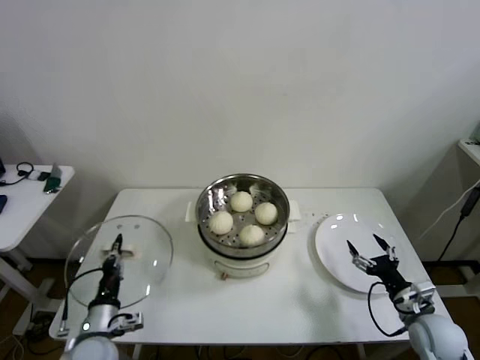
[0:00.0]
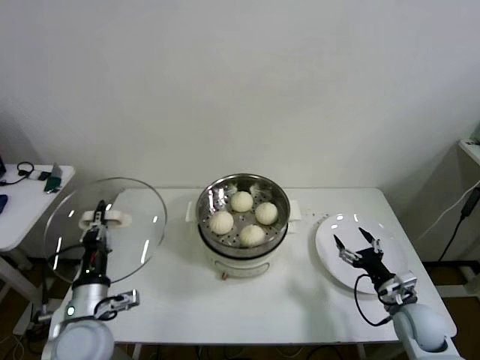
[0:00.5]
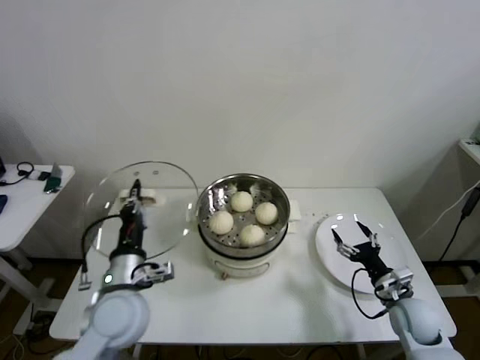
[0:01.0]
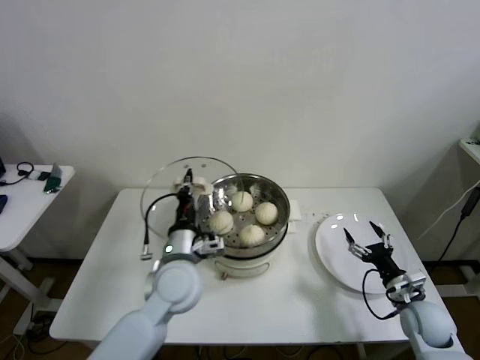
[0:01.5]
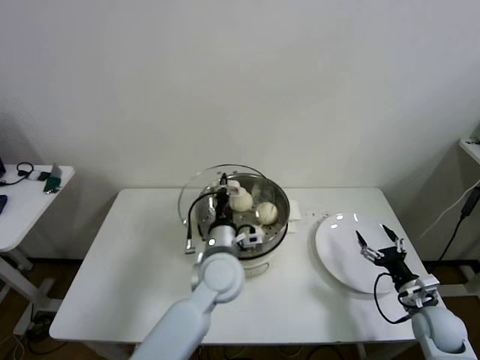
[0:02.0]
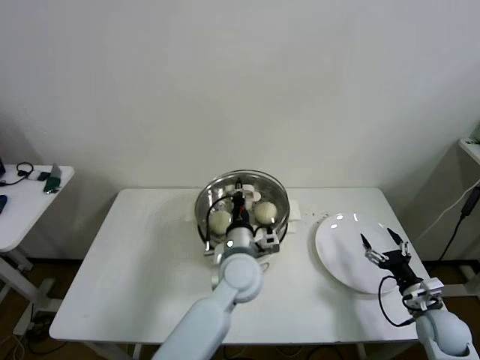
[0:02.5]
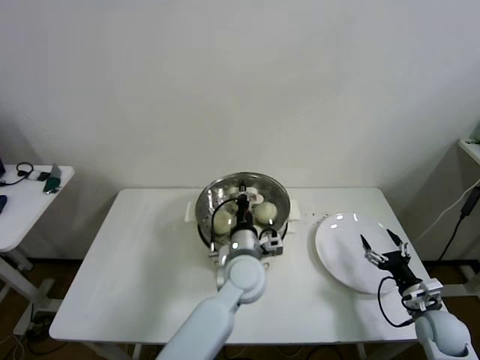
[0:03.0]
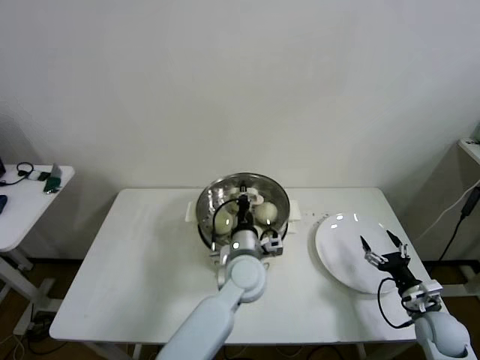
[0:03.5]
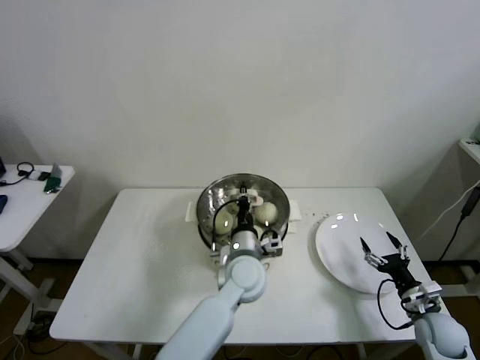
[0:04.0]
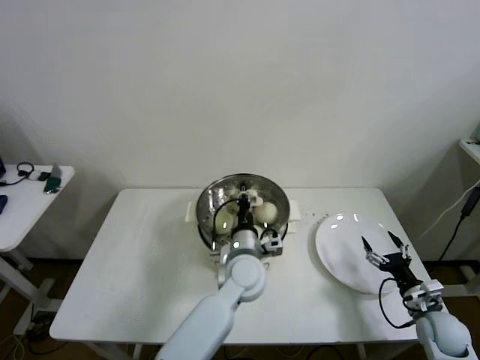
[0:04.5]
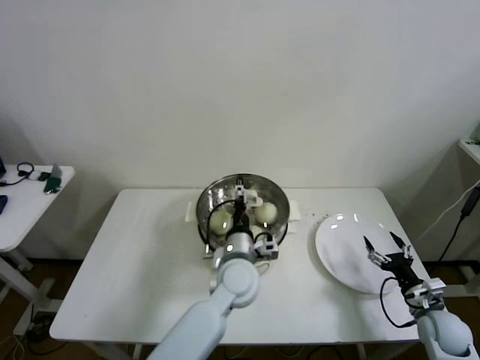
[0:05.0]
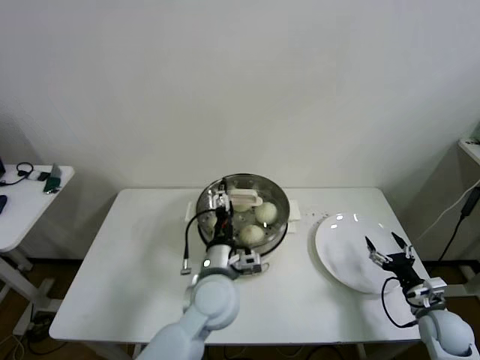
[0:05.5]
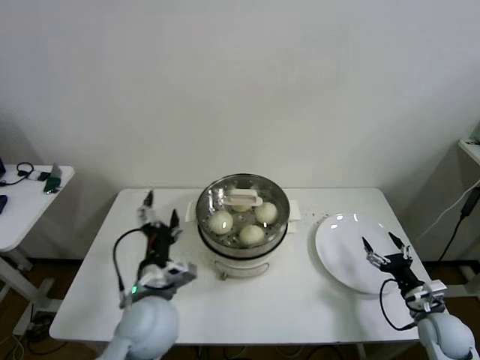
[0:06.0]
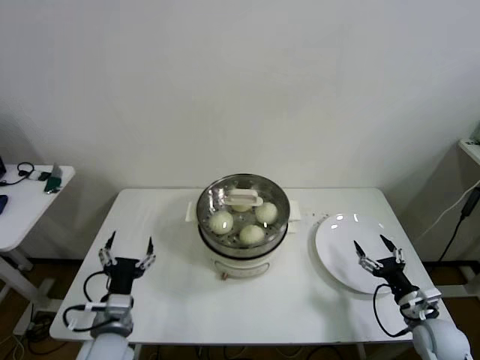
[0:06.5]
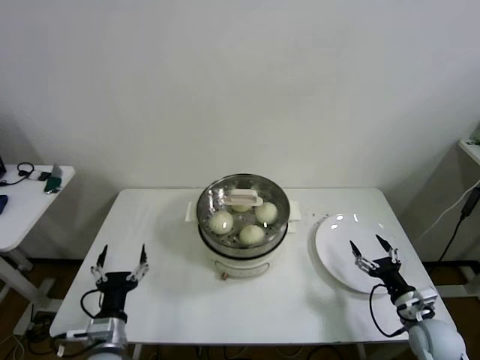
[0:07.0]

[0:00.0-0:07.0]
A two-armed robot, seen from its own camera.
Step, 0:00.0 to 0:04.5: Place the pot lid on the steamer with left gripper.
0:00.0 to 0:02.0: The left gripper is displaced to the right, upward and forward by approximately 30 cm.
0:02.0 to 0:03.5: The left gripper moves to the right, roughly 5 cm.
0:03.5 to 0:05.0: The left gripper opens.
0:05.0 to 0:07.0: The left gripper heads to the left and backward, covering roughly 30 cm.

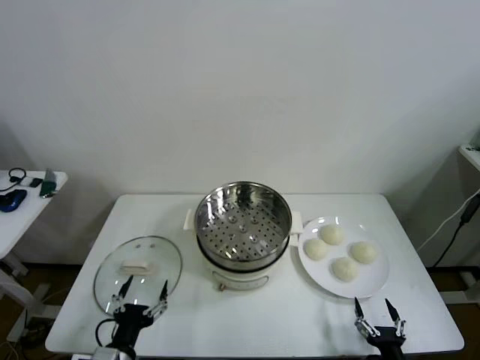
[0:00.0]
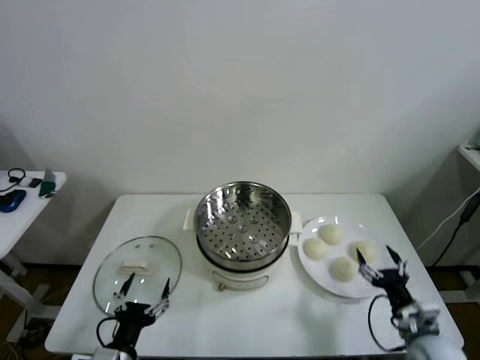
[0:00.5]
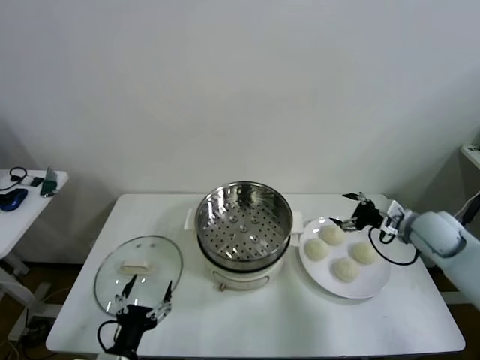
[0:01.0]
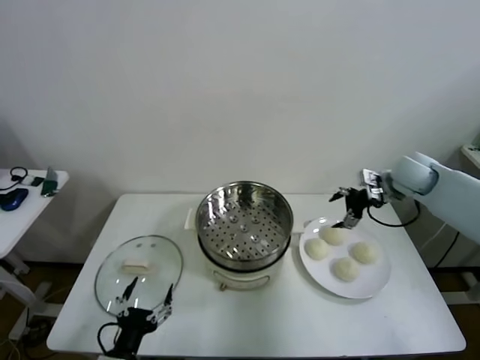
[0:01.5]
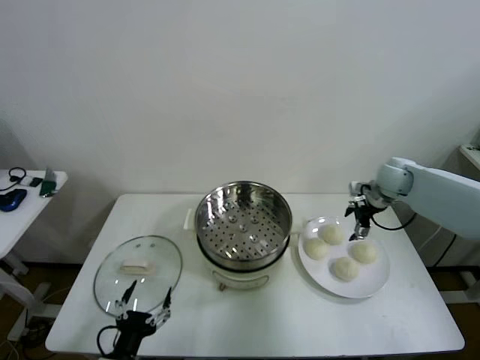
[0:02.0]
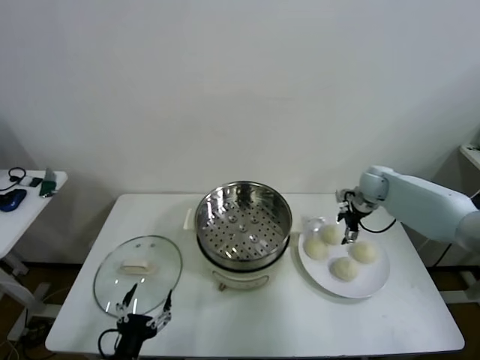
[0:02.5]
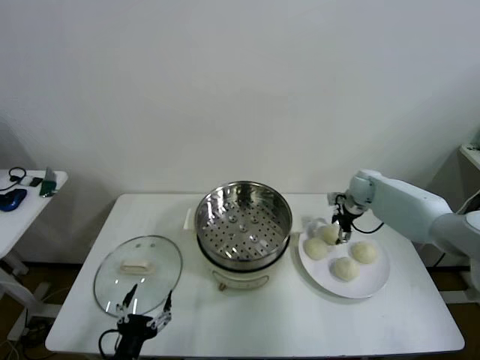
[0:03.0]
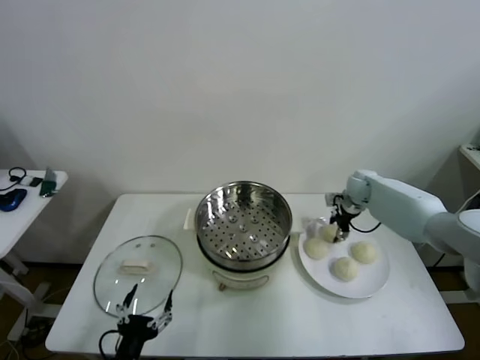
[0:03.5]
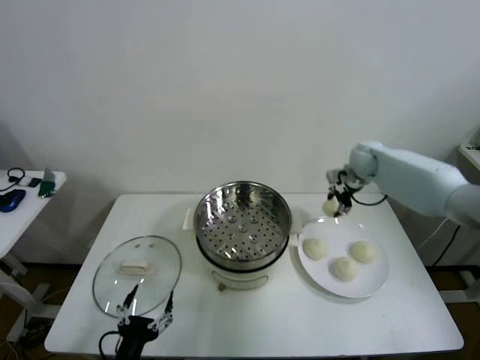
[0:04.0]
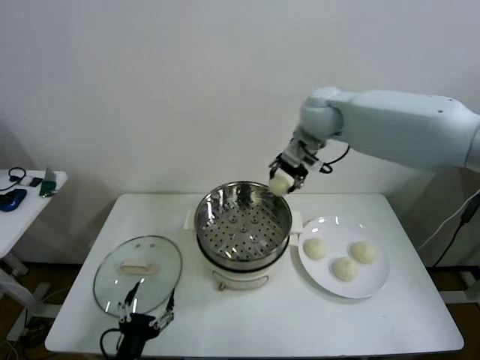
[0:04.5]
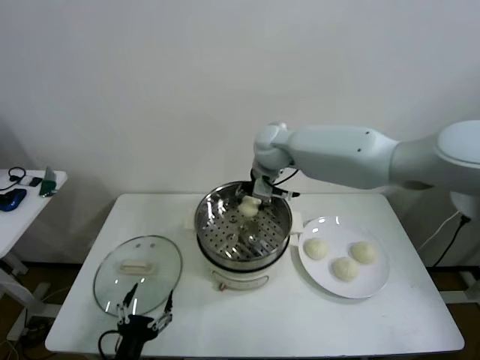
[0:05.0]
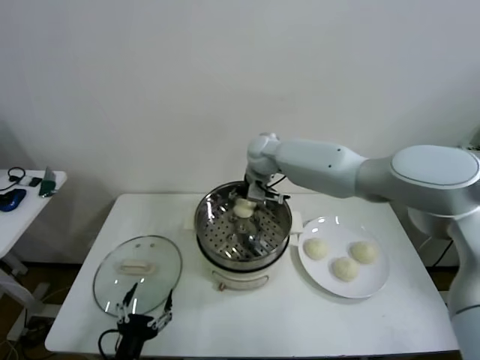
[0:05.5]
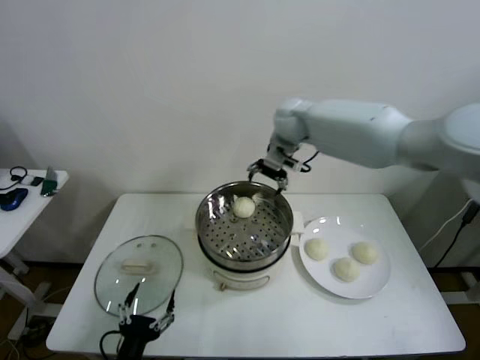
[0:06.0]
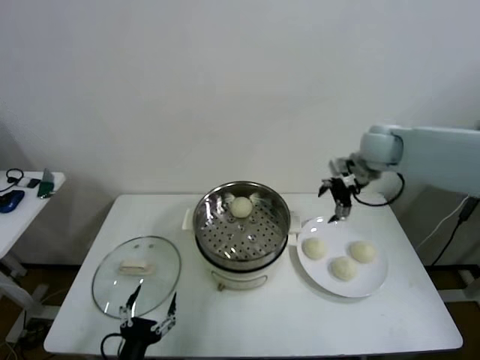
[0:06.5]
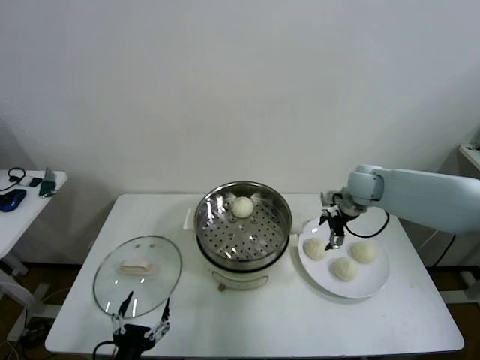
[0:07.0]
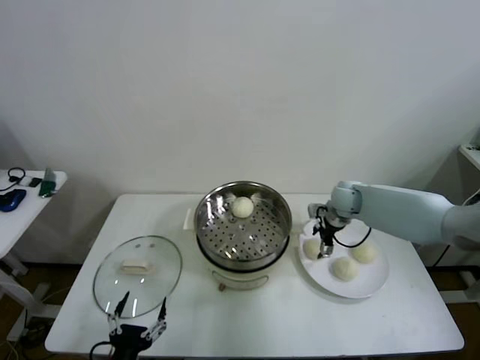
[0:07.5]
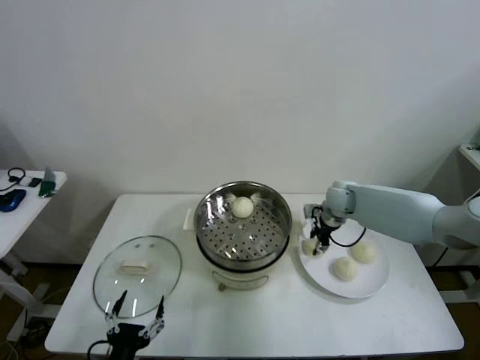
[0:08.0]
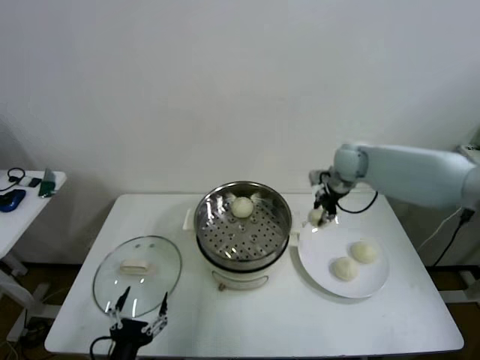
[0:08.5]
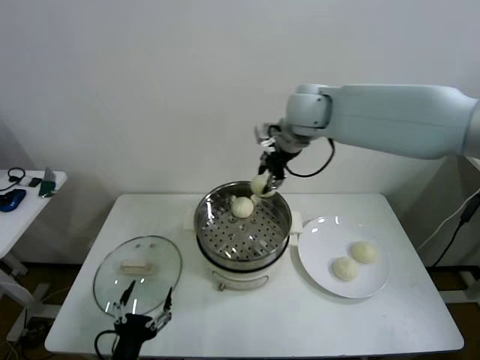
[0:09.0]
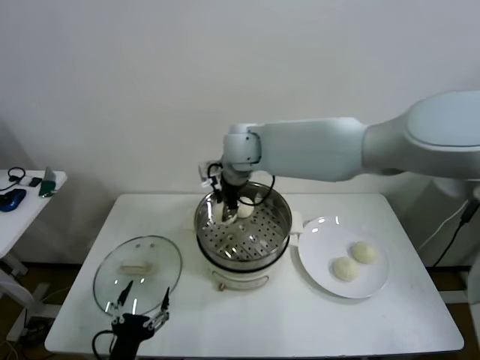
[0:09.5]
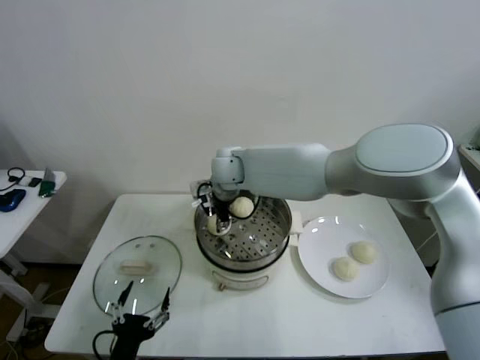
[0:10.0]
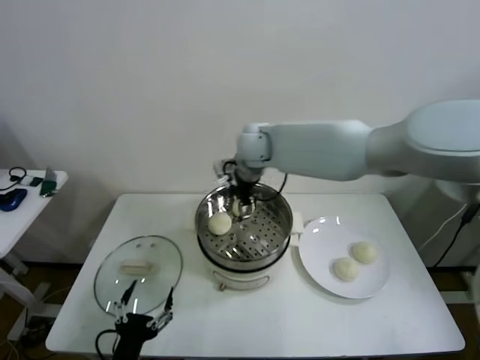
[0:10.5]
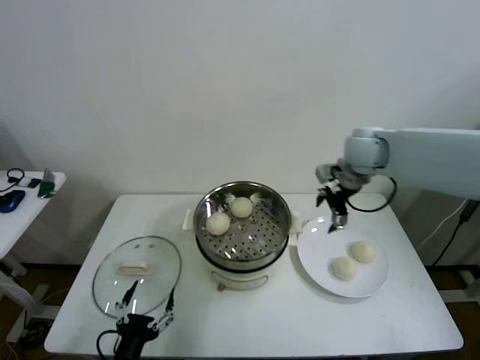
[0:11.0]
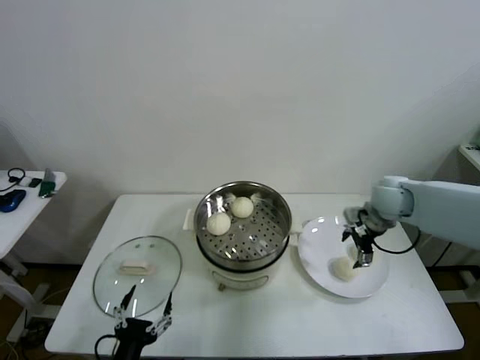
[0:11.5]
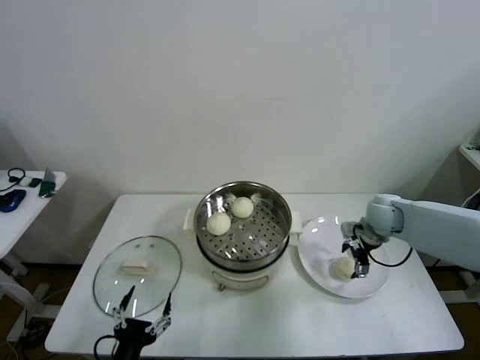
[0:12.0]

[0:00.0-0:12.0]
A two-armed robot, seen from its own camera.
Step, 0:00.0 to 0:03.0: Grasp the baozi in the plate with right gripper.
Step, 0:04.0 to 0:05.5: Place the baozi on the steamer with right gripper.
Step, 0:06.0 to 0:07.5: Grasp the baozi in the plate with right gripper.
Step, 0:08.0 to 0:10.0: Place the baozi on the steamer with right gripper.
0:02.0 to 0:04.0: The right gripper goes about 10 cm upward, to the left and forward, and closes up.
0:04.0 to 0:06.0: The right gripper travels to the left and upward by approximately 15 cm, and opens.
0:06.0 to 0:08.0: The right gripper moves downward and to the right, approximately 25 cm, and closes its fingers.
0:08.0 to 0:10.0: The right gripper moves to the left and upward, about 30 cm.
0:10.0 to 0:12.0: The right gripper travels to the right by approximately 40 cm, and opens up.

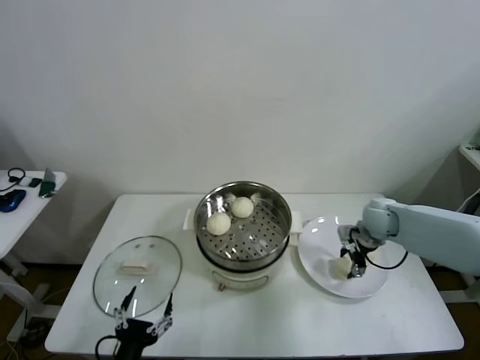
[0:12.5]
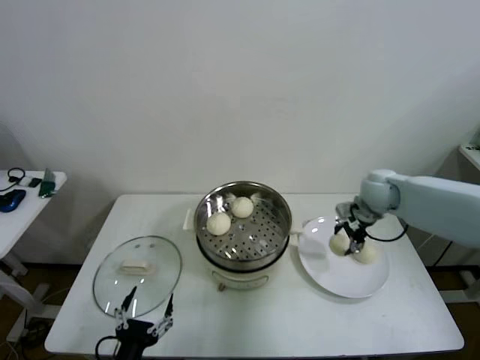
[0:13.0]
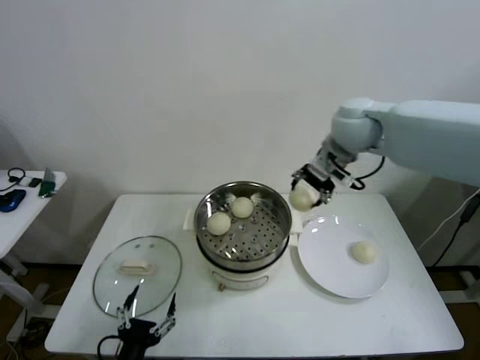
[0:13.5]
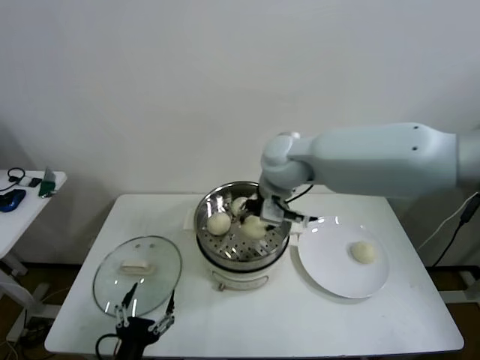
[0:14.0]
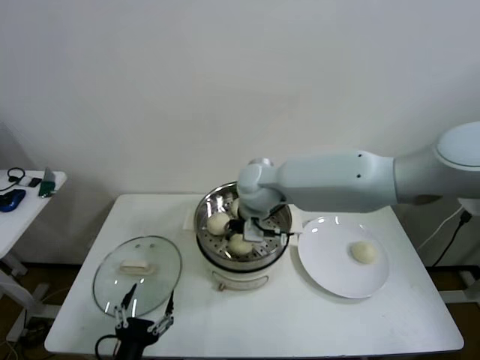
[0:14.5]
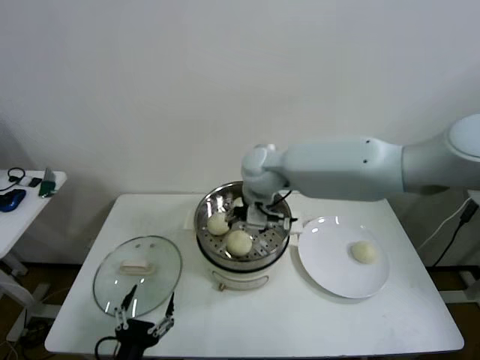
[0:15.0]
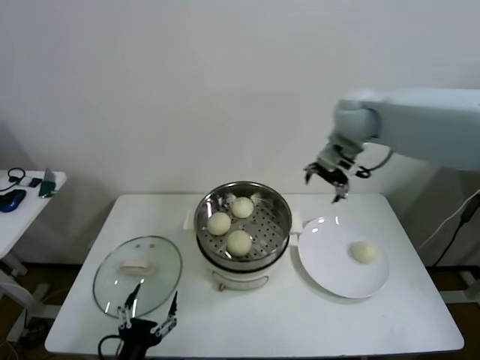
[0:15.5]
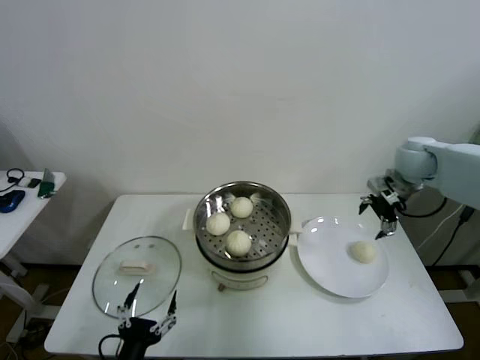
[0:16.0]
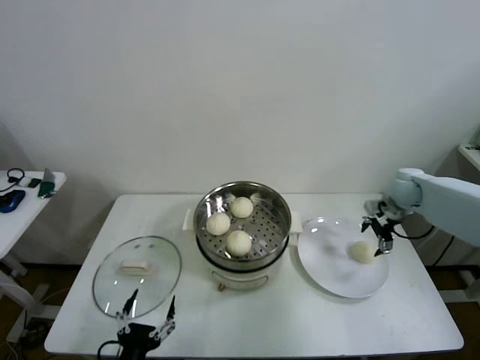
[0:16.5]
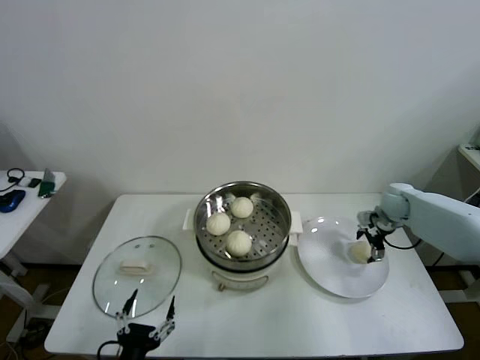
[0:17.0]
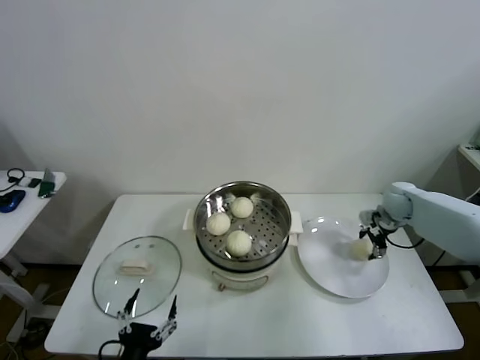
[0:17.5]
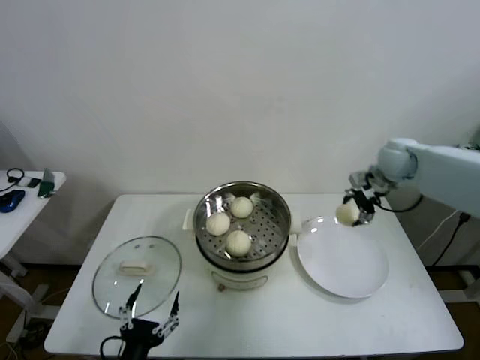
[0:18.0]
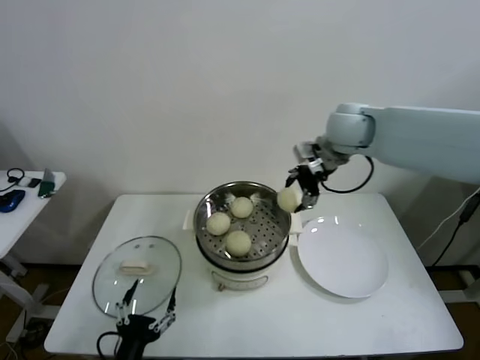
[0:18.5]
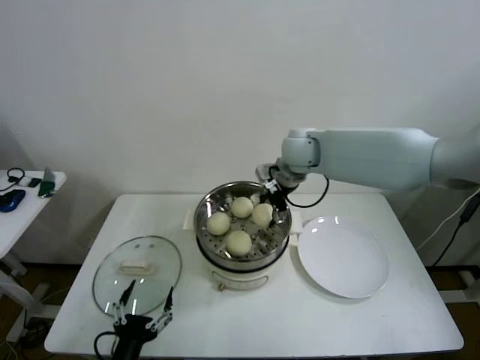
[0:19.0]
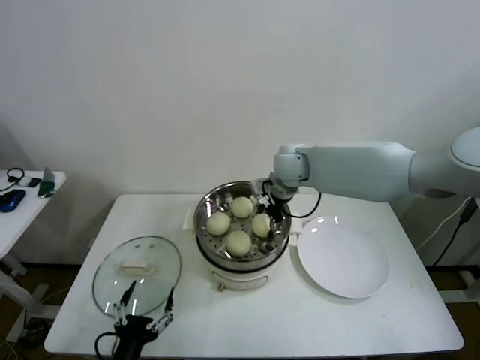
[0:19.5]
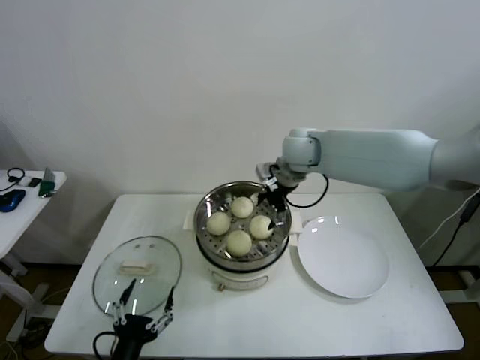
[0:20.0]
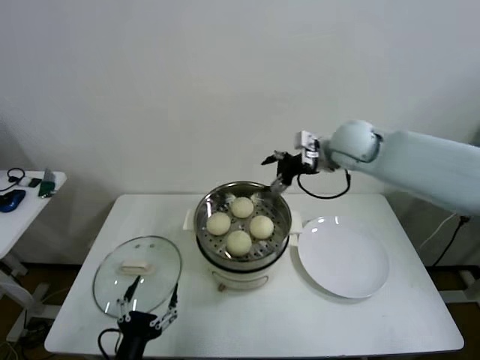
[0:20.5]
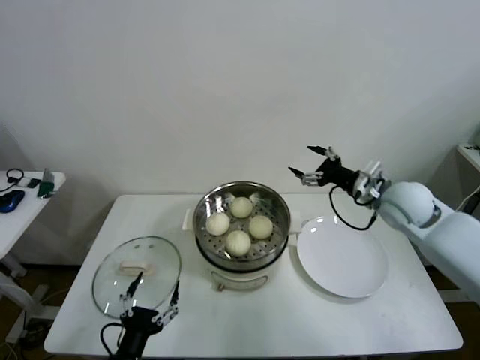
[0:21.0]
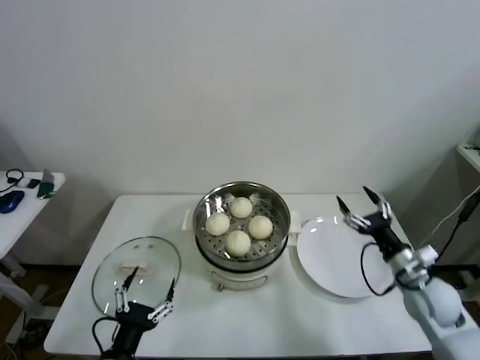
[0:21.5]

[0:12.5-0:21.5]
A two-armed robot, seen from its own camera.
Step, 0:12.5 to 0:14.5: Place the baozi on the steamer with right gripper.
Step, 0:15.0 to 0:17.0: Grasp the baozi in the plate with right gripper.
Step, 0:18.0 to 0:19.5: Place the baozi on the steamer with right gripper.
0:12.5 to 0:14.5: The right gripper goes some 35 cm to the left and upward.
0:14.5 to 0:17.0: The right gripper travels to the right by approximately 40 cm, and opens up.
0:17.0 to 0:19.5: The right gripper is displaced to the left and upward by roughly 35 cm.
0:19.5 to 0:21.5: The right gripper moves to the right, backward and downward, some 40 cm.
